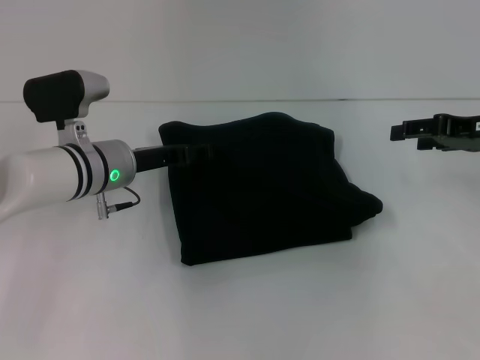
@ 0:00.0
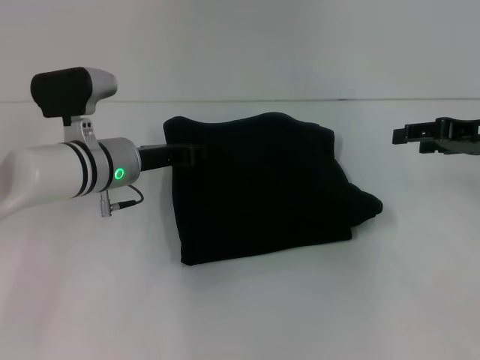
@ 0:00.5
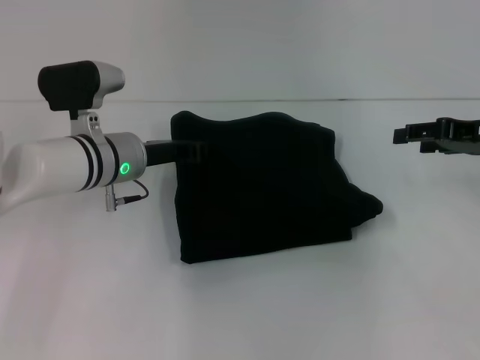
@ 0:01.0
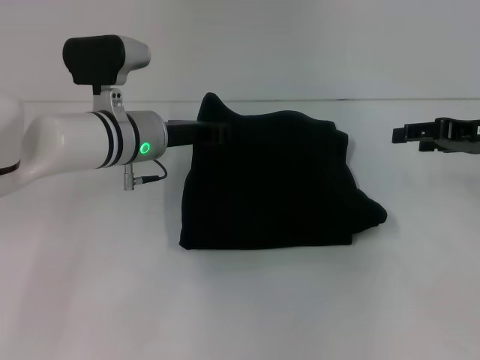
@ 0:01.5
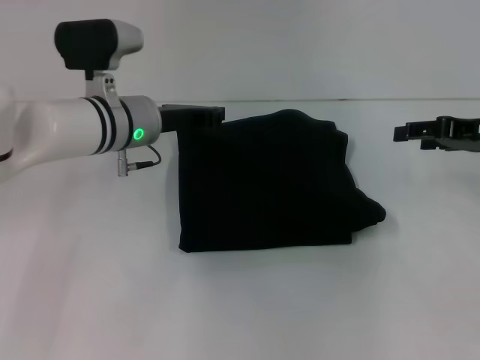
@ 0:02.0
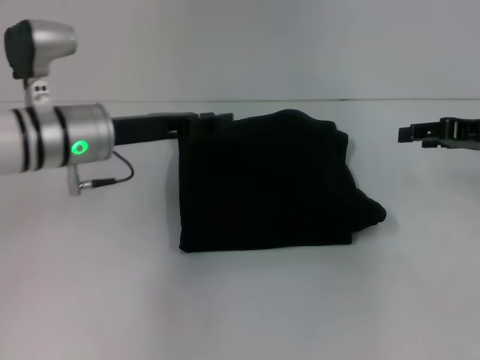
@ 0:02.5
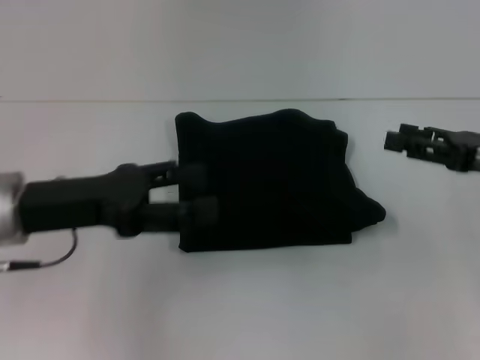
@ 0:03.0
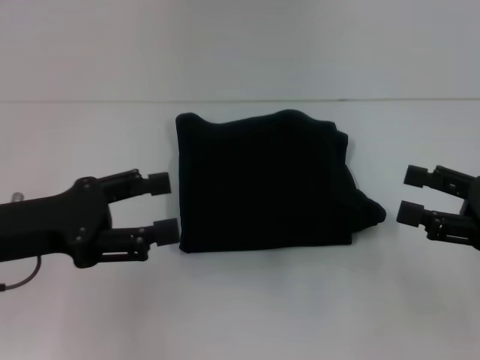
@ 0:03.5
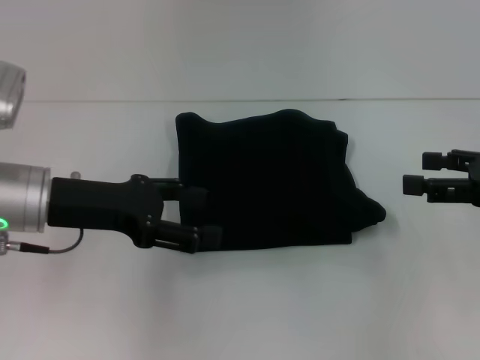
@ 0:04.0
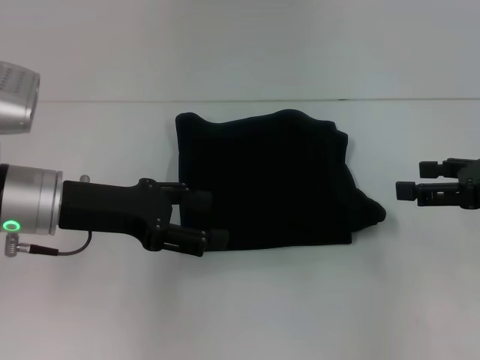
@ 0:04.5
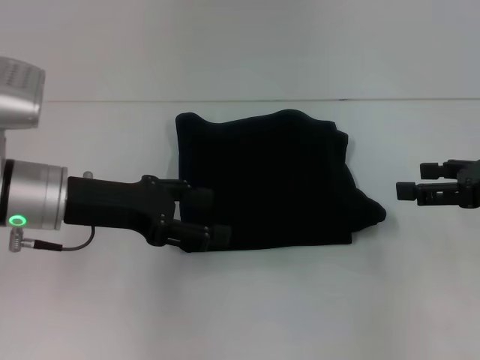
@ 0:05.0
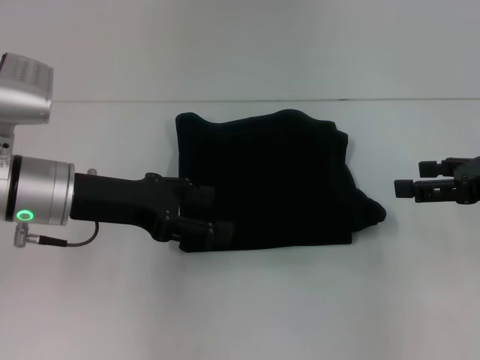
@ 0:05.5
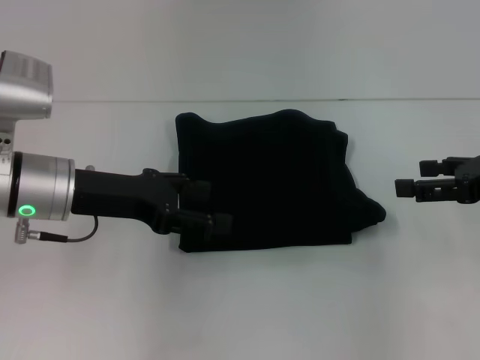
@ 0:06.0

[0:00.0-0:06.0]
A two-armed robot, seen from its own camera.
0:00.0 to 0:02.0: The left gripper ends up approximately 5 cm from where it was, and closes its fingers.
0:02.0 to 0:04.0: The right gripper moves backward, roughly 10 cm. Meanwhile the left gripper moves backward and to the left, about 15 cm, and opens its fingers.
0:04.0 to 0:06.0: The grippers stay close to where they were, moving slightly.

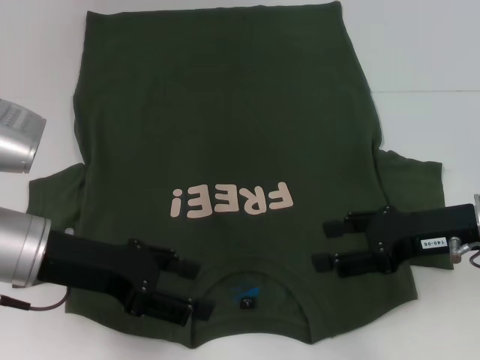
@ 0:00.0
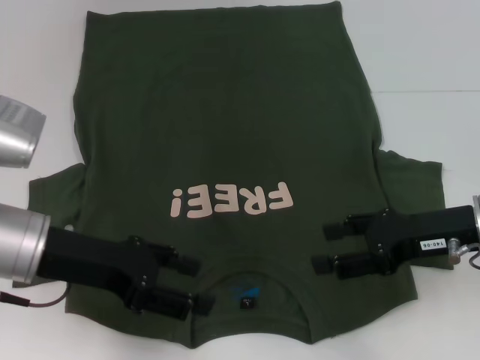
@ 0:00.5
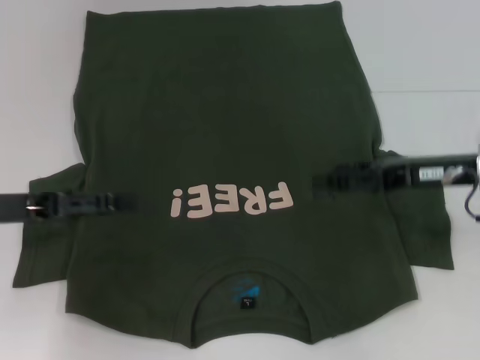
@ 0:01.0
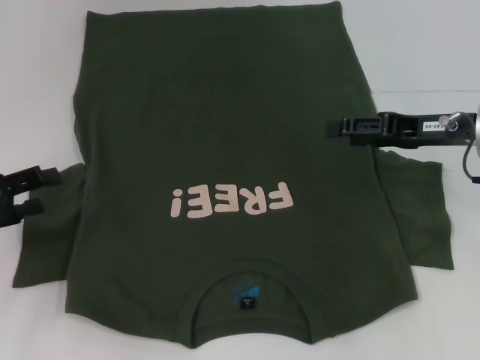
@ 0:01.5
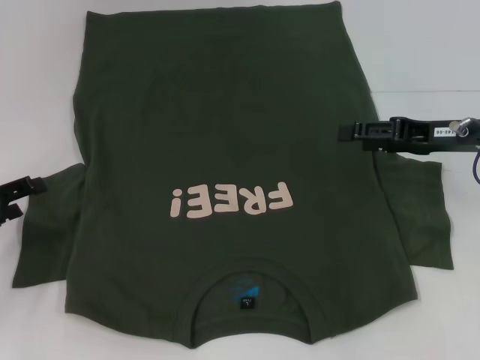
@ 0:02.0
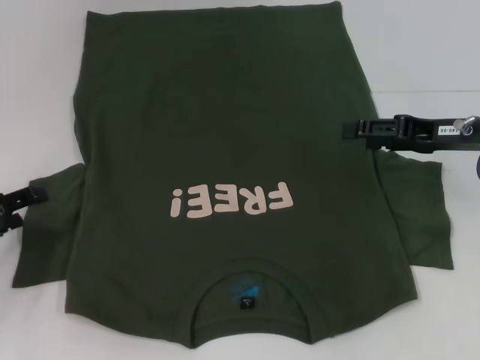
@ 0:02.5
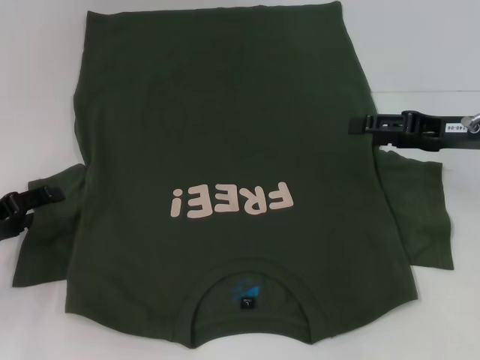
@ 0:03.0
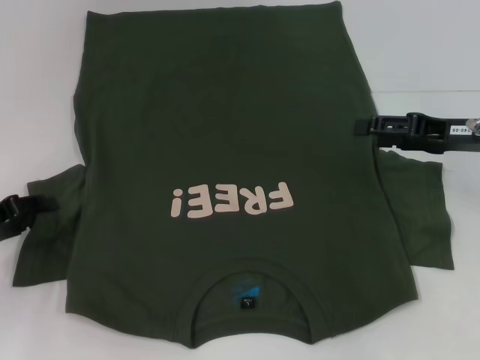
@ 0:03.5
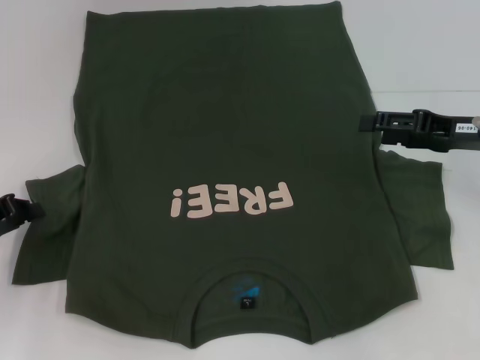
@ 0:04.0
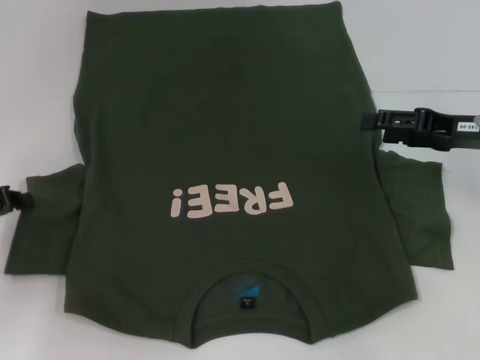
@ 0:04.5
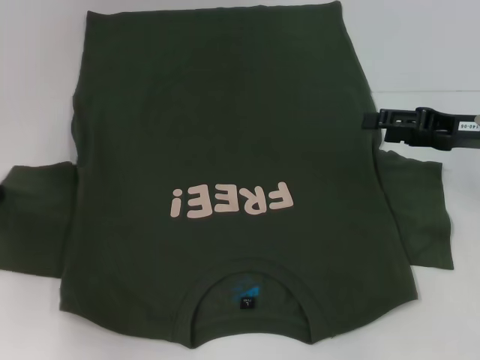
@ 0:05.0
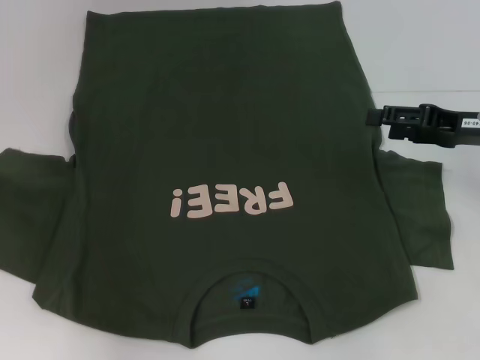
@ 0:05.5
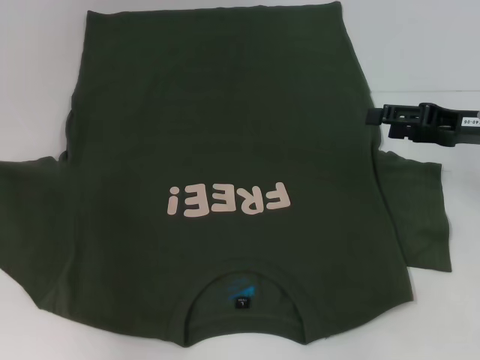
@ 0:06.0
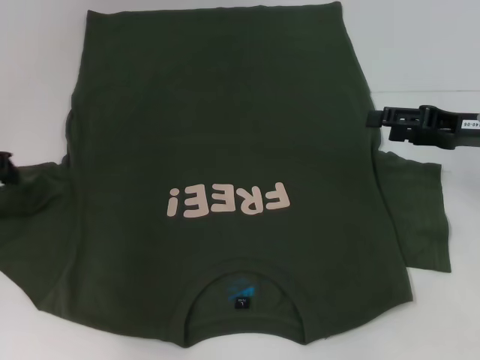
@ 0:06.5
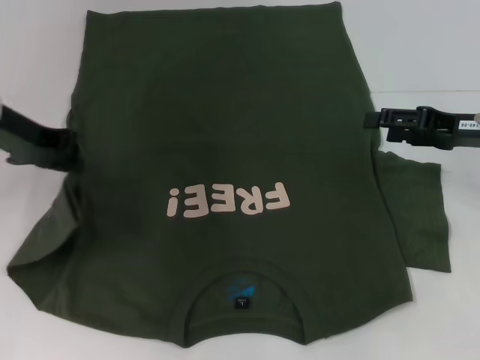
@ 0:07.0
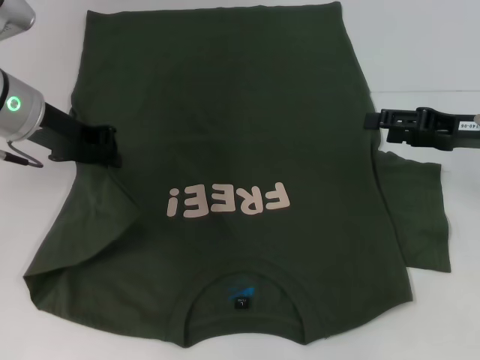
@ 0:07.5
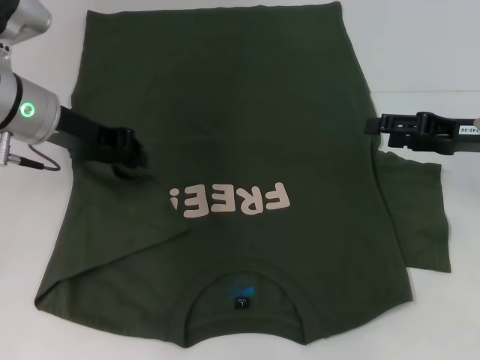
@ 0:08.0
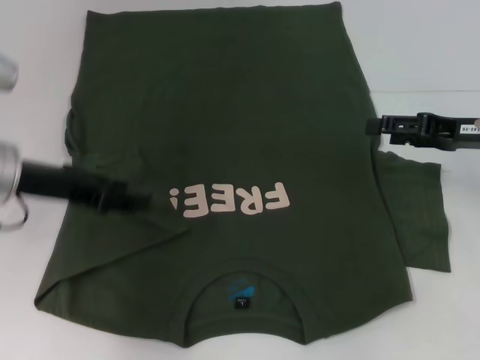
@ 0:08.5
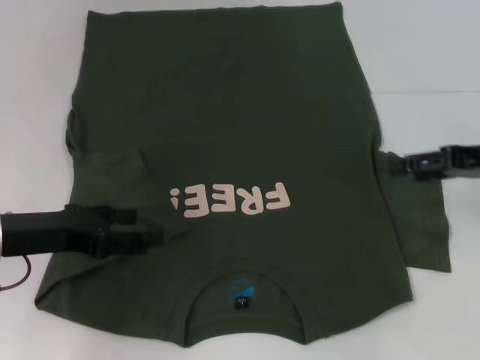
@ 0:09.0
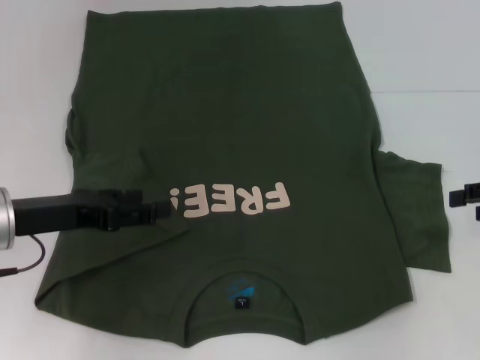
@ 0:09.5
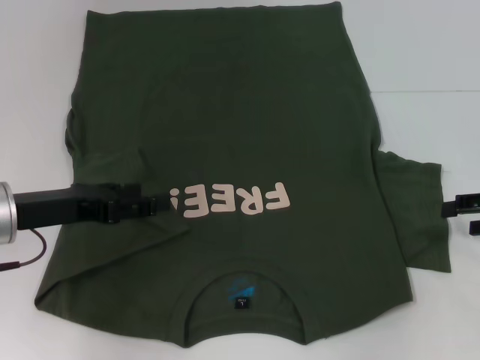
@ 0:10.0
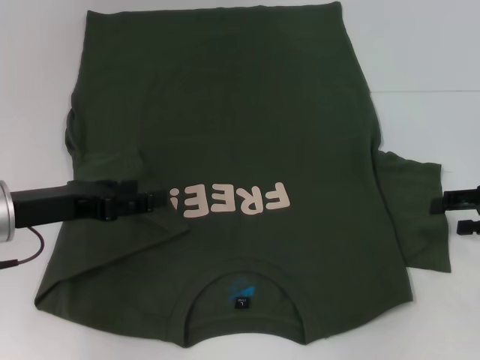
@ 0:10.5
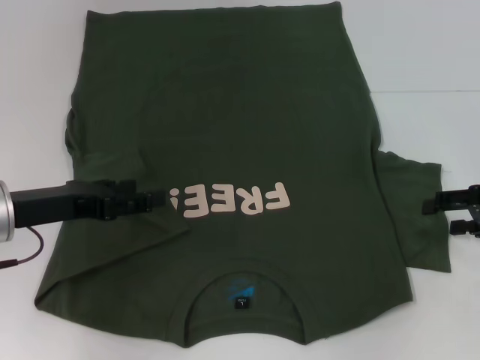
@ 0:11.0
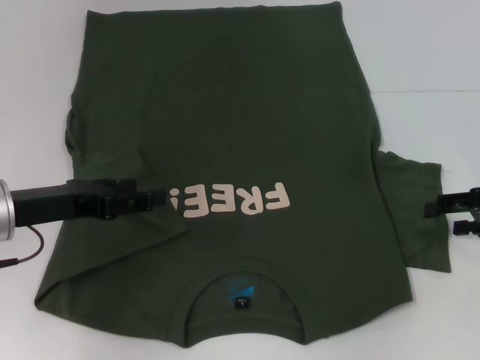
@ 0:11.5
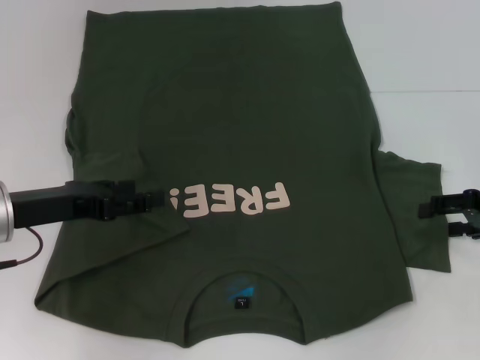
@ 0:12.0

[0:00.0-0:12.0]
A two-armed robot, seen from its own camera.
Step, 0:00.0 to 0:09.0: Fold the bottom left sleeve with your left hand.
0:00.0 to 0:02.0: The left gripper is displaced to the left and downward by about 15 cm. Meanwhile the right gripper heads forward, covering roughly 5 cm.
0:02.0 to 0:04.0: The left gripper closes up.
0:04.0 to 0:06.0: The left gripper travels upward and forward by approximately 10 cm.
0:06.0 to 0:08.0: The left gripper heads to the right, covering about 15 cm.
0:08.0 to 0:10.0: The left gripper shifts about 10 cm backward and downward, and opens; the right gripper moves to the right, some 5 cm.
0:10.0 to 0:12.0: There are only small adjustments of the grippers.

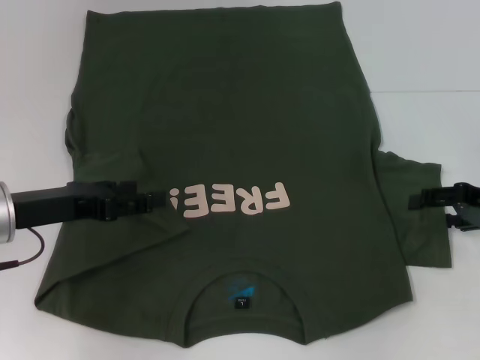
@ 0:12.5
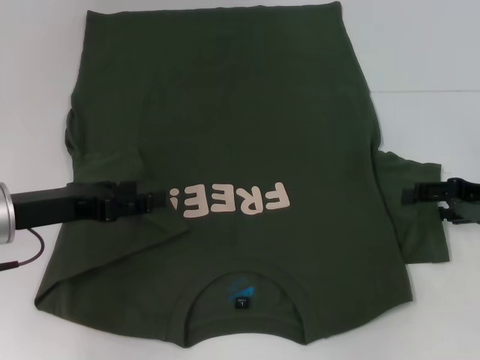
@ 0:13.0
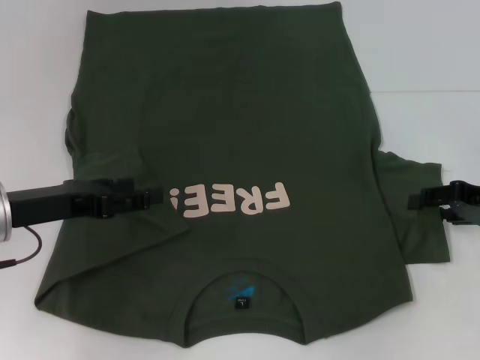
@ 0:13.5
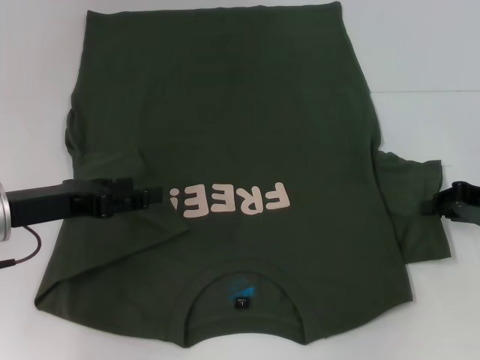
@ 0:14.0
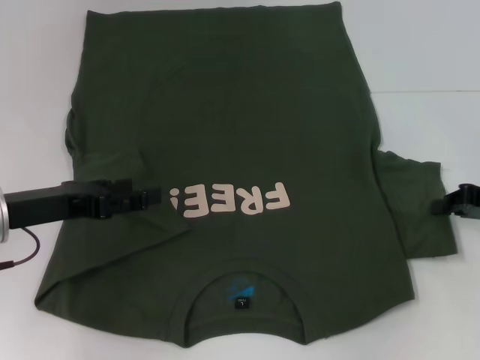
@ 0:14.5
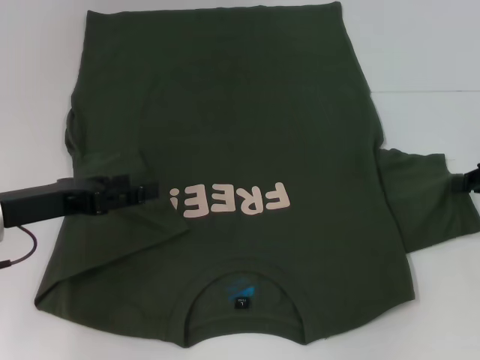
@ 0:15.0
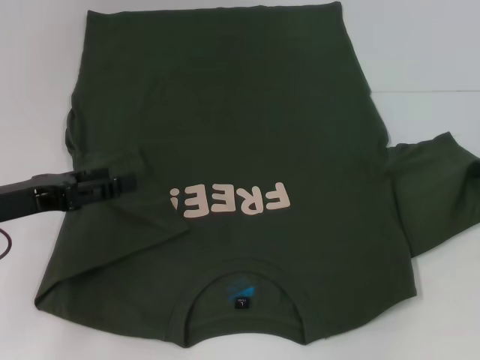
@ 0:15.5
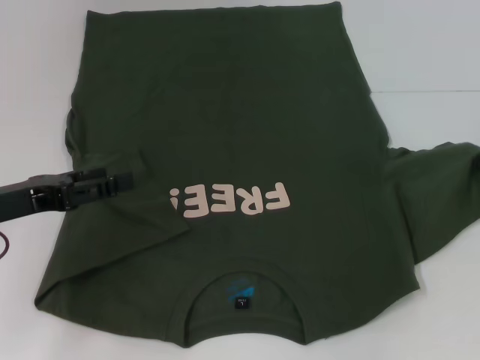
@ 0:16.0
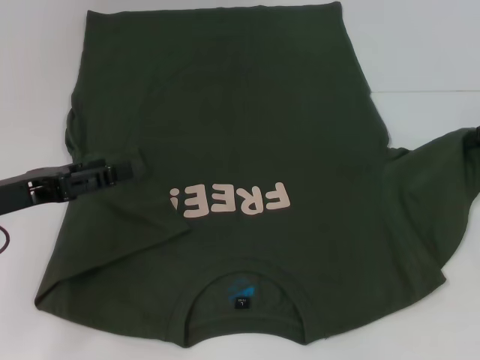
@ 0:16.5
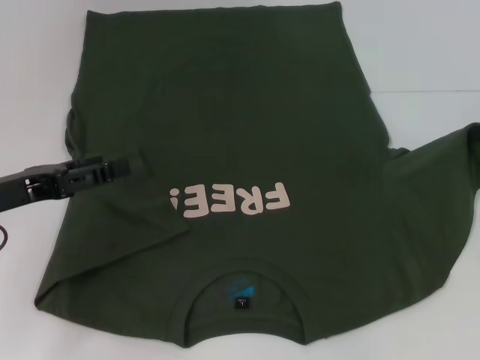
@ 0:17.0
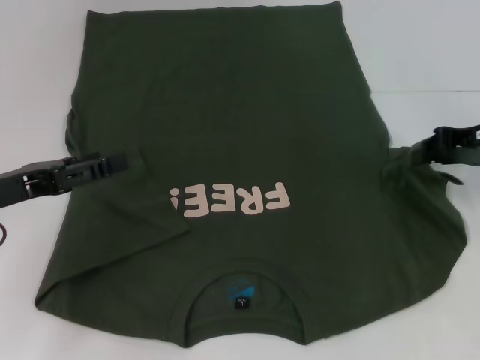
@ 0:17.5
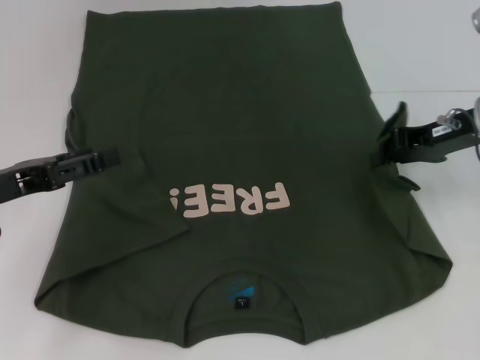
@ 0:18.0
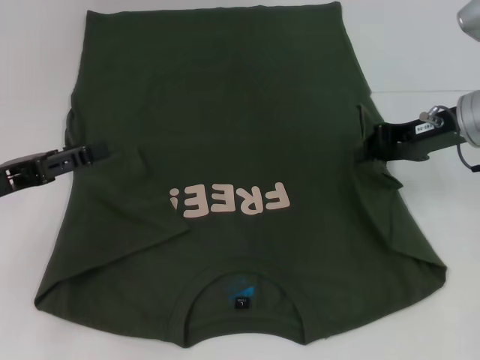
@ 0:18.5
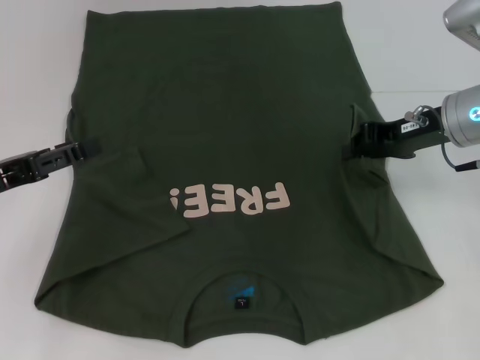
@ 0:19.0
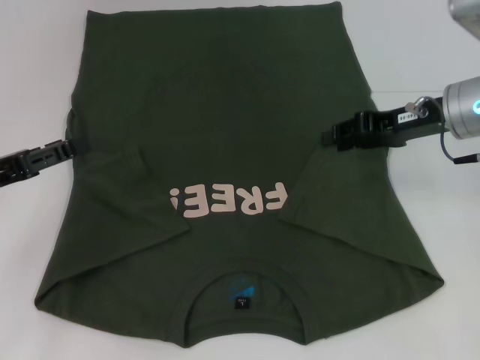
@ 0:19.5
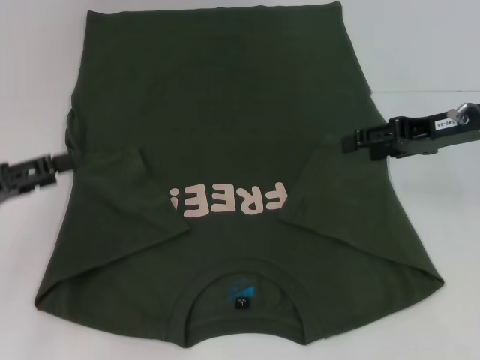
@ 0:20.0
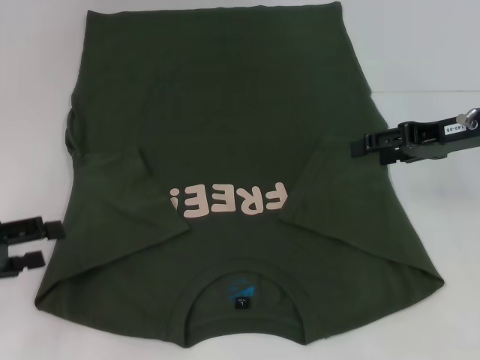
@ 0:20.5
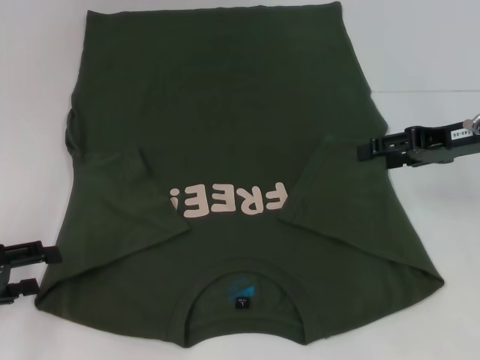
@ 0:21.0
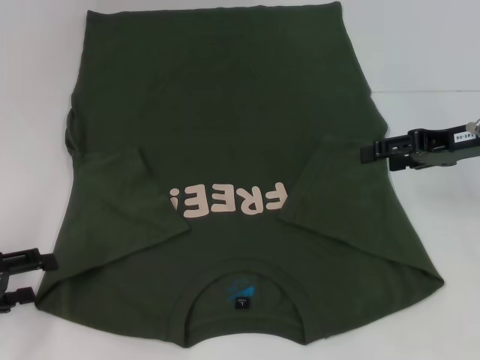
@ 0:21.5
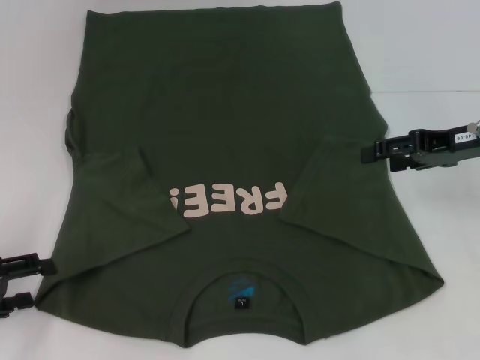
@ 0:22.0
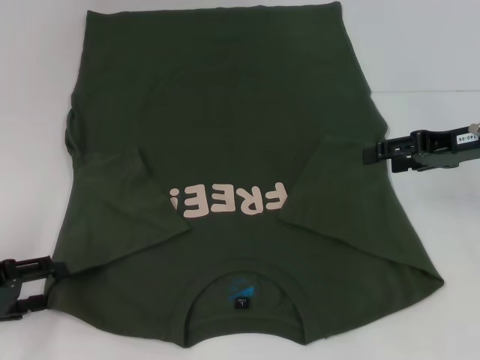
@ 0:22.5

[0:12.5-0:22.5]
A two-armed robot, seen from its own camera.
Step, 0:12.5 to 0:19.5: Fold the bottom right sleeve with your right hand.
0:12.5 to 0:14.5: The right gripper closes up.
0:14.5 to 0:16.5: The right gripper shifts roughly 10 cm upward and forward.
0:16.5 to 0:18.5: The right gripper travels to the left by some 10 cm.
0:18.5 to 0:20.5: The right gripper opens up, while the left gripper ends up roughly 5 cm from where it was.
0:20.5 to 0:22.5: There are only small adjustments of the grippers.
